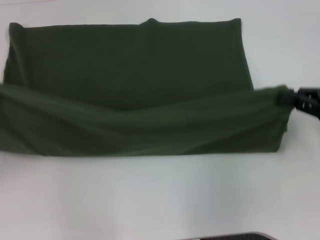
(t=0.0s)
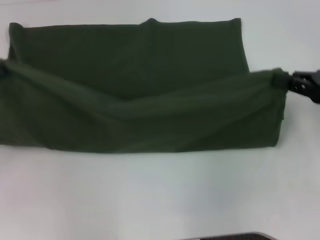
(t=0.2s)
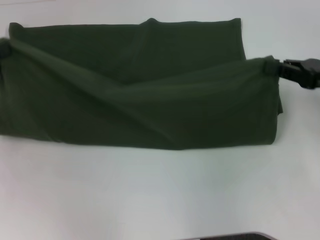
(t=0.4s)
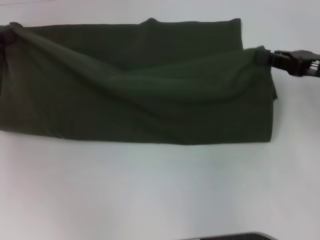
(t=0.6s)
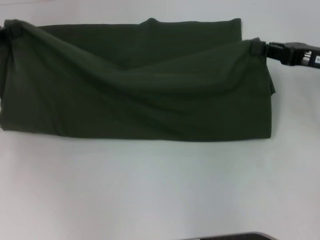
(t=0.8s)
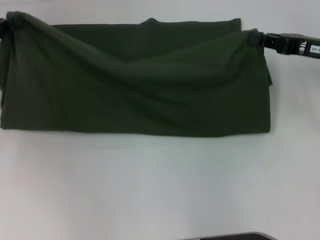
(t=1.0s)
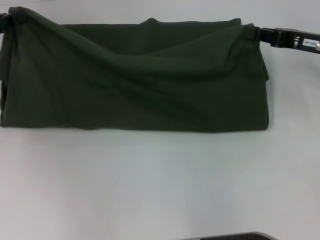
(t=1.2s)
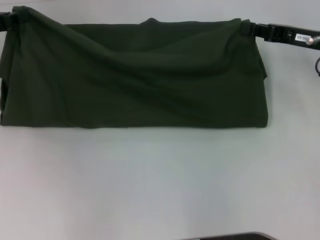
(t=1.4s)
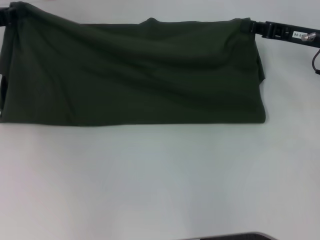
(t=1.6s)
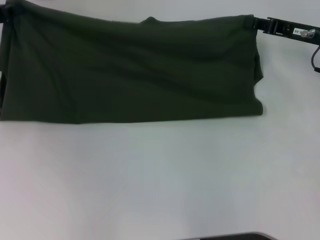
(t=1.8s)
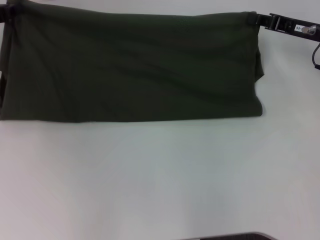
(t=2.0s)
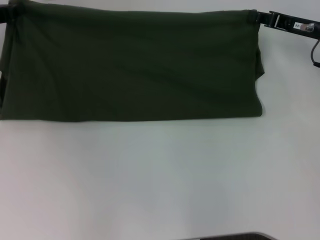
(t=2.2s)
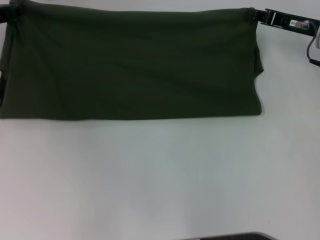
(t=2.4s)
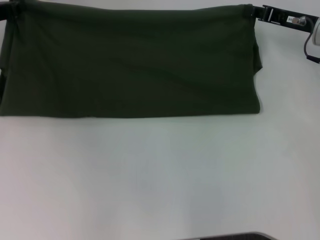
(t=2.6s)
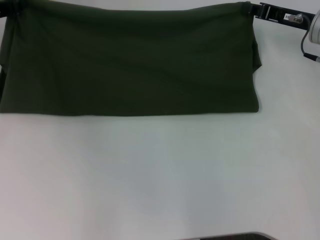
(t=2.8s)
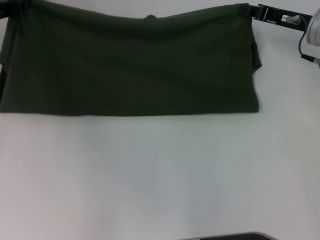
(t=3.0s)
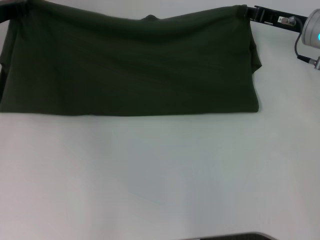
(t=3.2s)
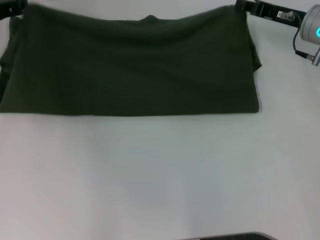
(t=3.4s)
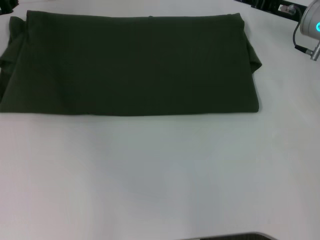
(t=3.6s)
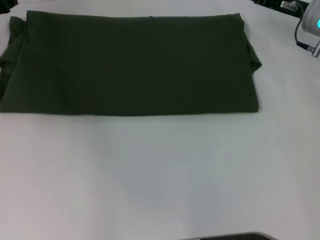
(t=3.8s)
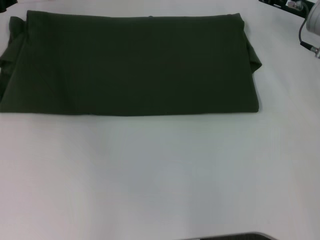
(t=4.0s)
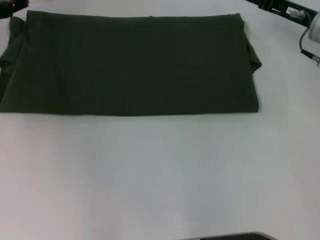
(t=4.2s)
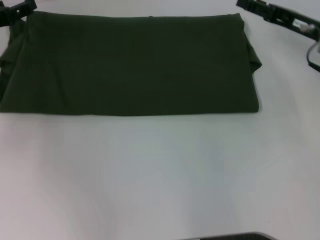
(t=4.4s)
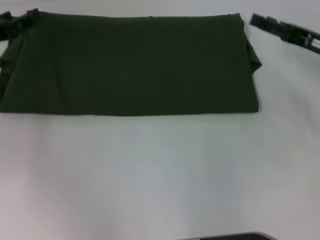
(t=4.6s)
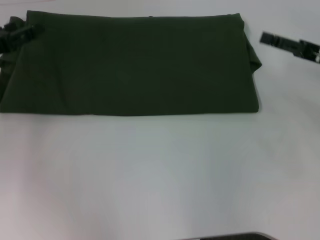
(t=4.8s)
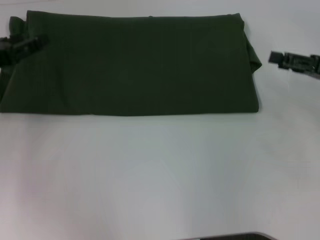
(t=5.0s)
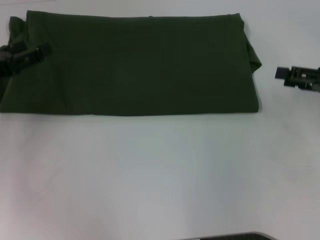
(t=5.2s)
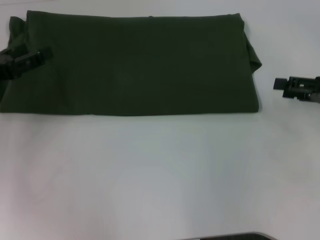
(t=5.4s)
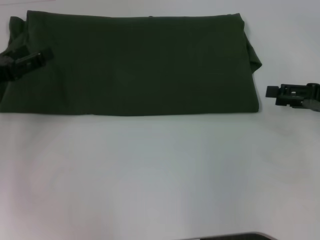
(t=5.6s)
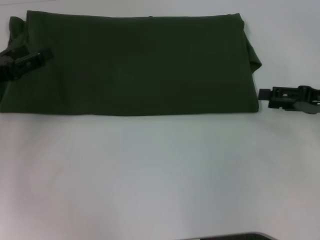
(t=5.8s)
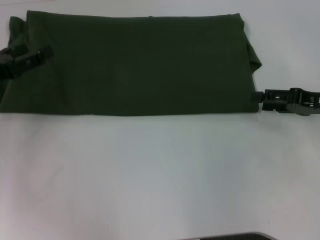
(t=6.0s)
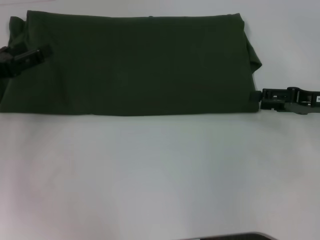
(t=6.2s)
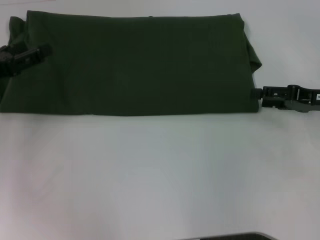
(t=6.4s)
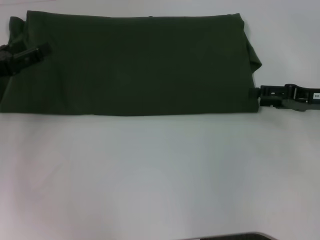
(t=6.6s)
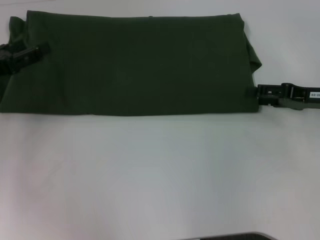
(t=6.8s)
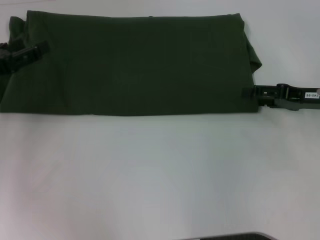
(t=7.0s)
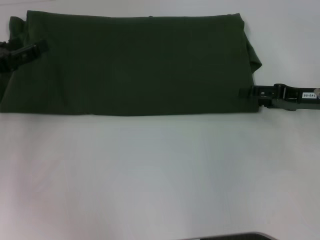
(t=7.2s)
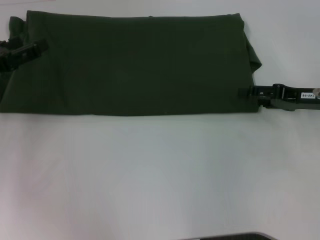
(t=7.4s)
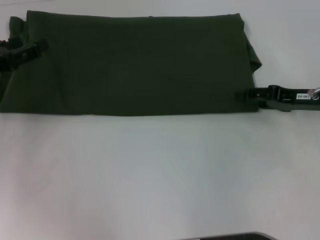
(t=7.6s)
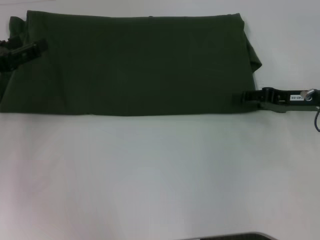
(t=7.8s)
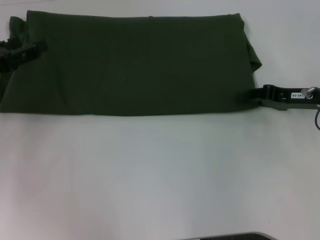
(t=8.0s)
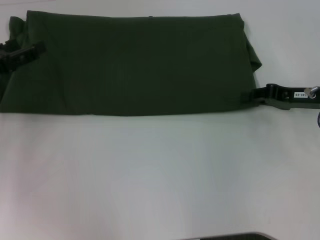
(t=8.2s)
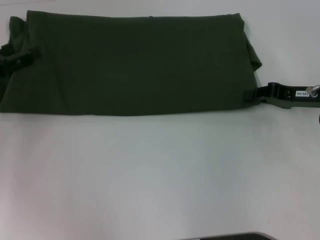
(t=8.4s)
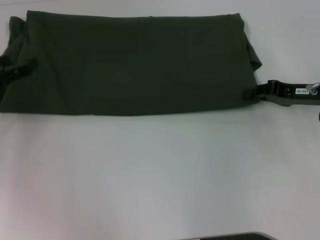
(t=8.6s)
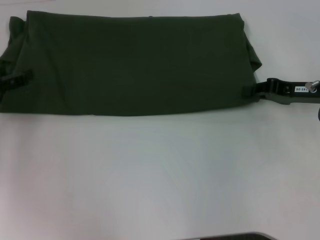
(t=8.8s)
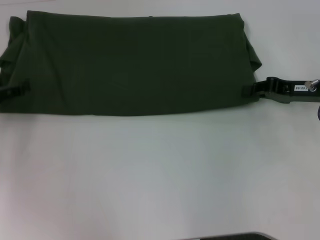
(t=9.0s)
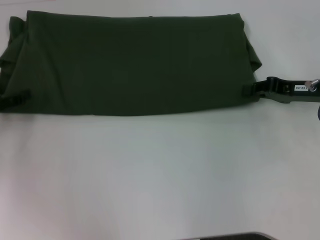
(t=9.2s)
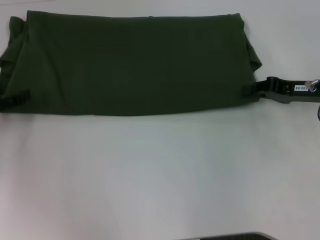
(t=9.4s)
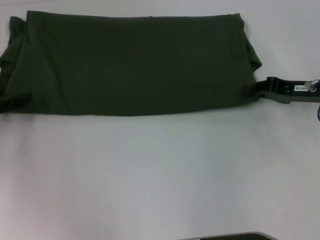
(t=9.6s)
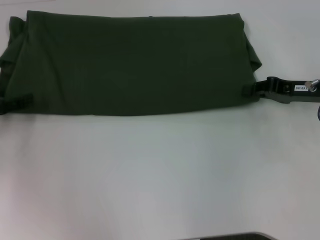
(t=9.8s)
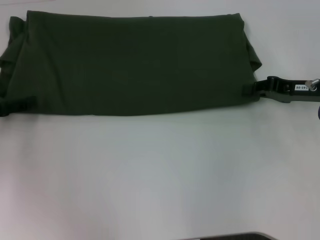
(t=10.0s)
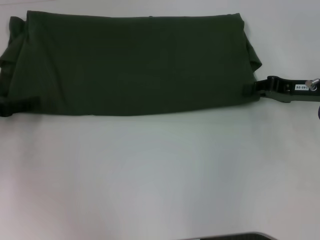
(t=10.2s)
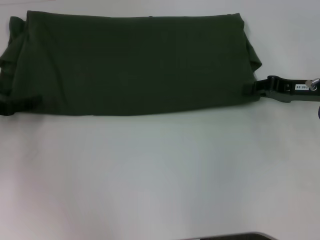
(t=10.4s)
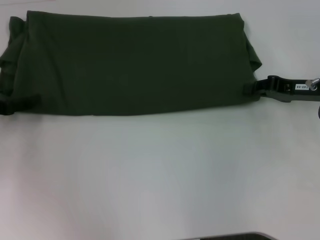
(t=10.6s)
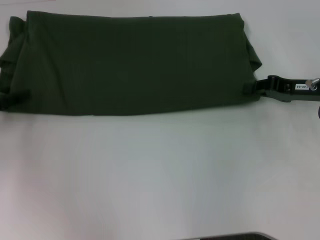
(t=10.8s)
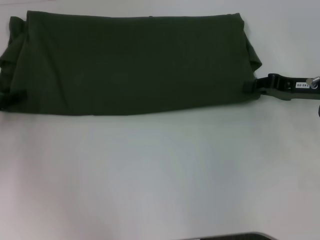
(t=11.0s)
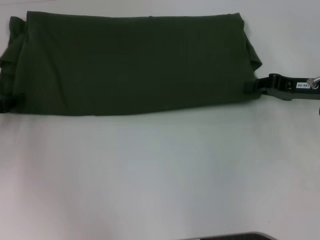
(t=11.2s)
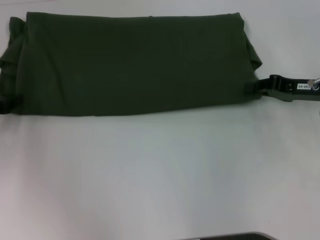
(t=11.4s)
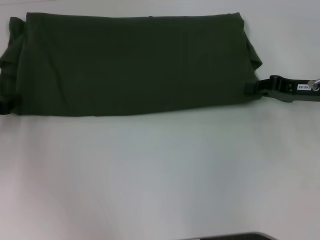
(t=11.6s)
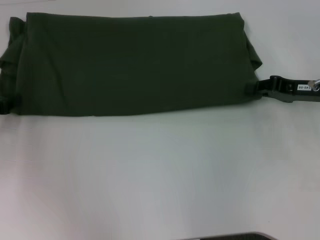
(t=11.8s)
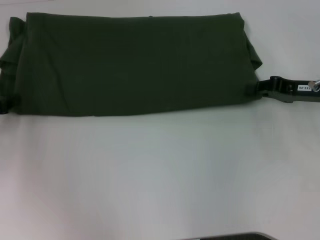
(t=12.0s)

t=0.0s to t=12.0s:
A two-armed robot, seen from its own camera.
Step, t=0.0s to t=3.8s: Fold the clothes with your left hand.
Step, t=0.0s to t=3.8s: Fold the clothes with your right hand.
t=0.0s to t=1.6s: Both grippers move forward, roughly 15 cm.
t=1.6s to t=3.0s: The grippers stay close to where they were, moving slightly.
t=3.0s to t=4.4s: The right gripper opens its fingers; the left gripper opens its fingers.
t=4.4s to t=6.0s: Both grippers travel together backward, some 5 cm.
t=6.0s to t=7.6s: There are only small adjustments of the grippers.
t=7.6s to t=9.0s: The right gripper closes.
t=9.0s to t=10.4s: The grippers stay close to where they were, moving slightly.

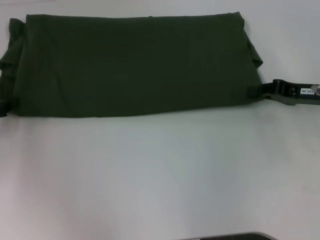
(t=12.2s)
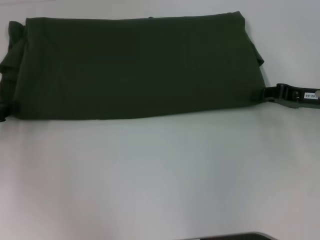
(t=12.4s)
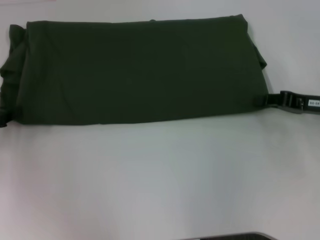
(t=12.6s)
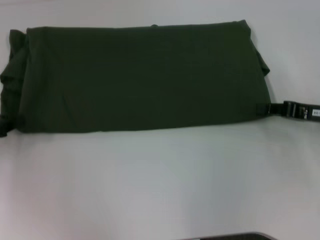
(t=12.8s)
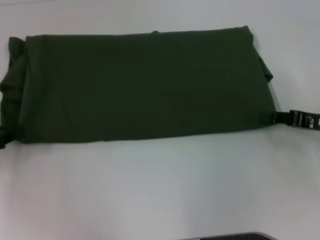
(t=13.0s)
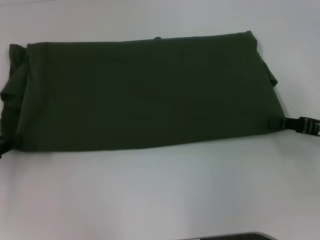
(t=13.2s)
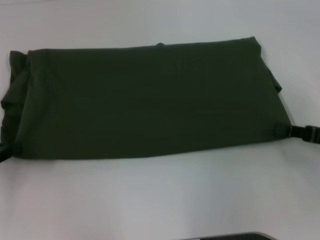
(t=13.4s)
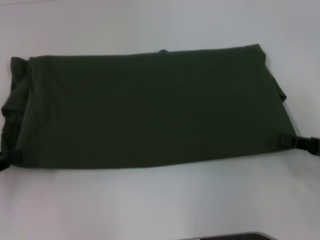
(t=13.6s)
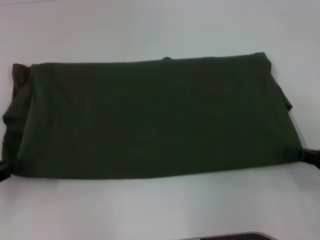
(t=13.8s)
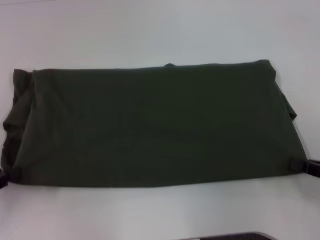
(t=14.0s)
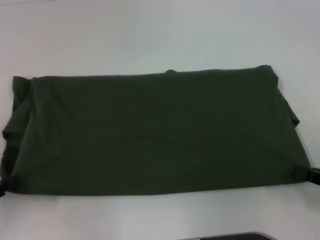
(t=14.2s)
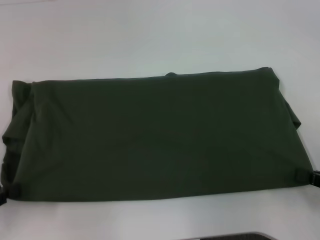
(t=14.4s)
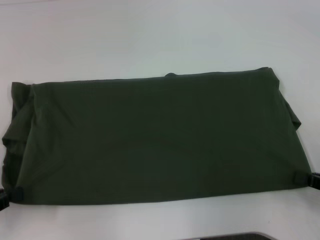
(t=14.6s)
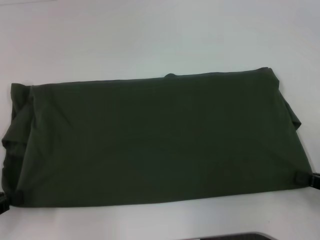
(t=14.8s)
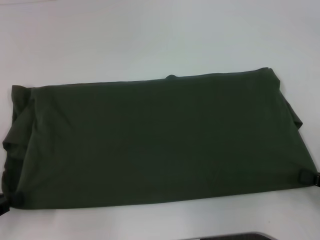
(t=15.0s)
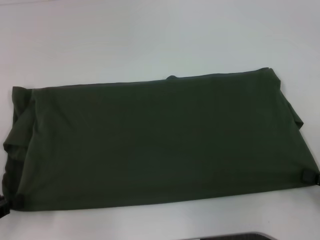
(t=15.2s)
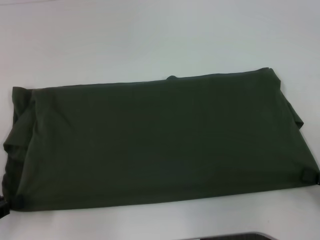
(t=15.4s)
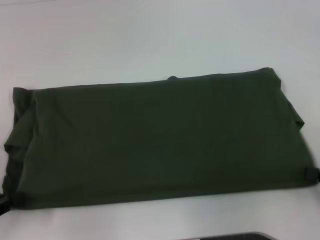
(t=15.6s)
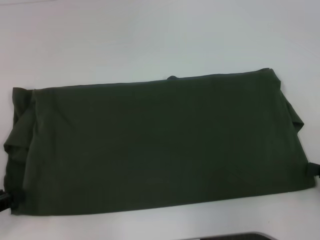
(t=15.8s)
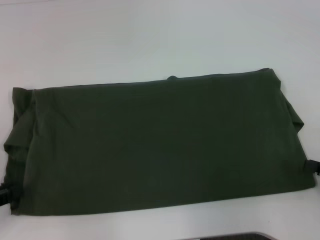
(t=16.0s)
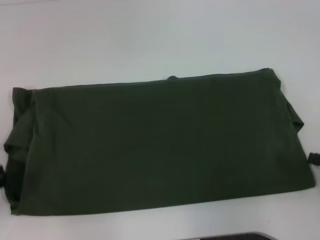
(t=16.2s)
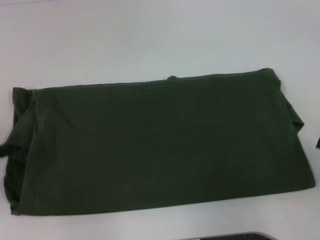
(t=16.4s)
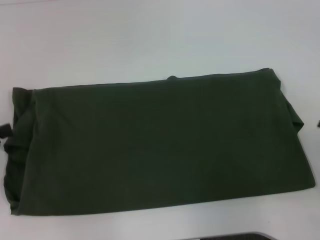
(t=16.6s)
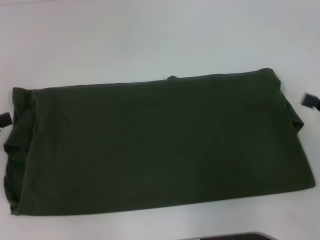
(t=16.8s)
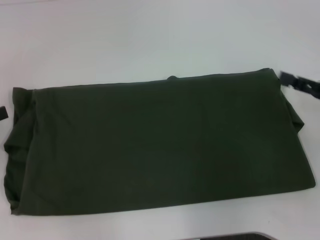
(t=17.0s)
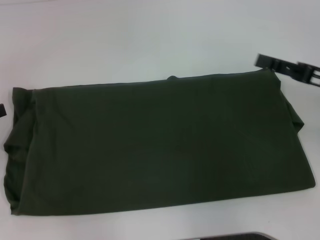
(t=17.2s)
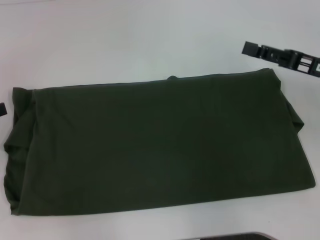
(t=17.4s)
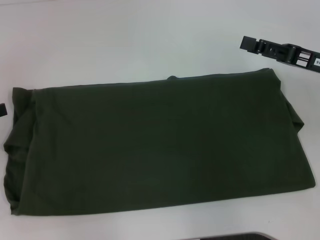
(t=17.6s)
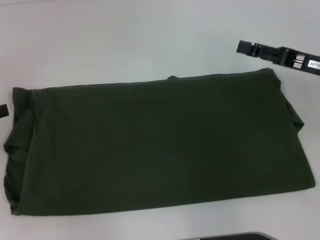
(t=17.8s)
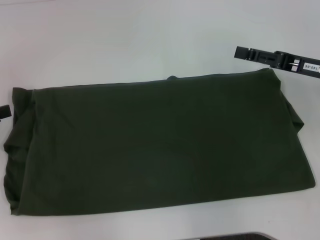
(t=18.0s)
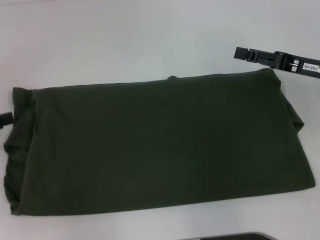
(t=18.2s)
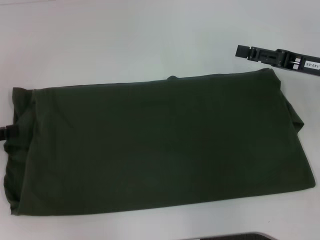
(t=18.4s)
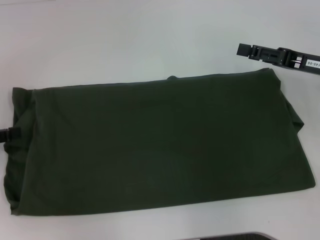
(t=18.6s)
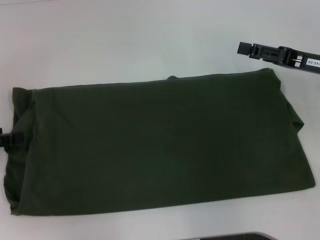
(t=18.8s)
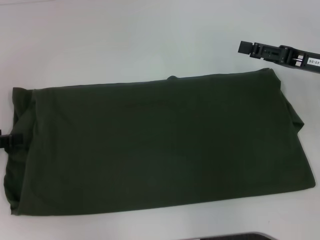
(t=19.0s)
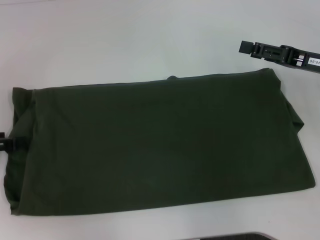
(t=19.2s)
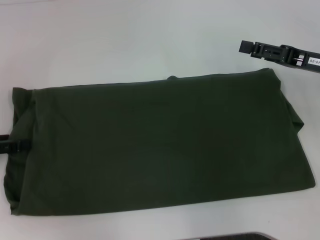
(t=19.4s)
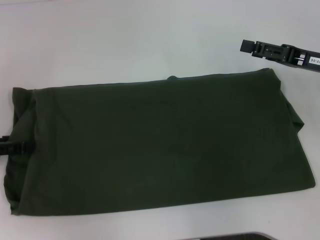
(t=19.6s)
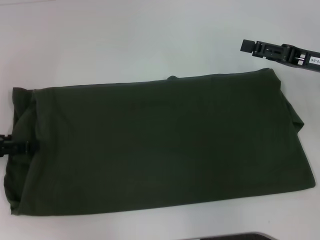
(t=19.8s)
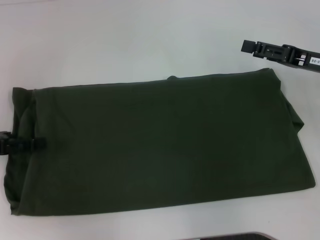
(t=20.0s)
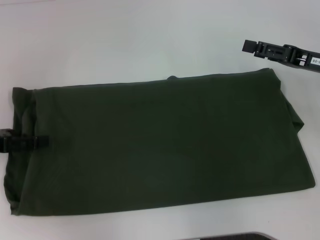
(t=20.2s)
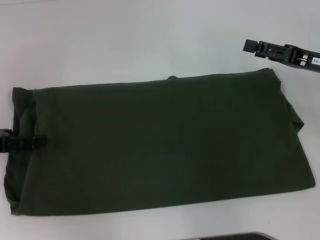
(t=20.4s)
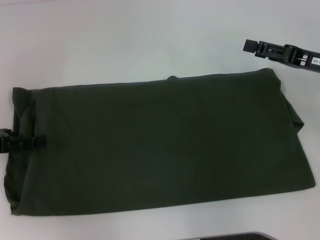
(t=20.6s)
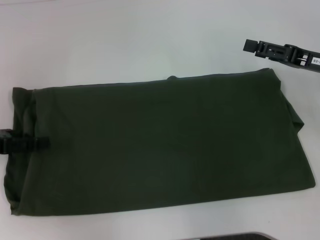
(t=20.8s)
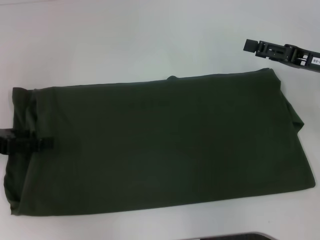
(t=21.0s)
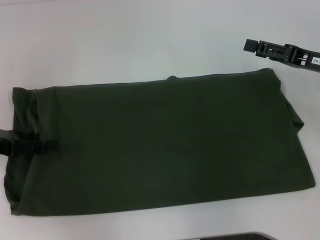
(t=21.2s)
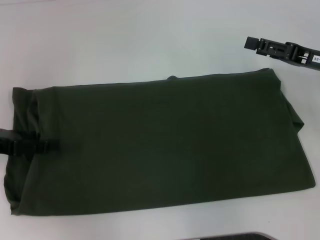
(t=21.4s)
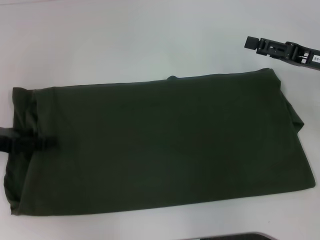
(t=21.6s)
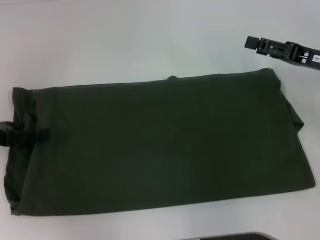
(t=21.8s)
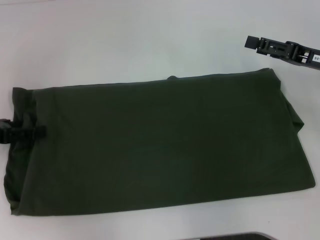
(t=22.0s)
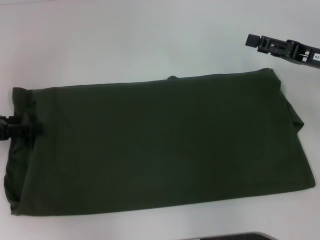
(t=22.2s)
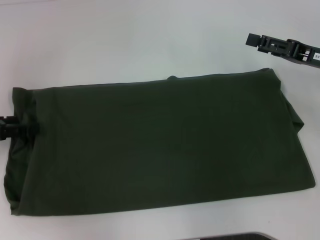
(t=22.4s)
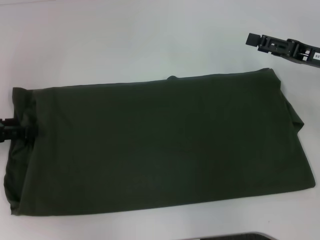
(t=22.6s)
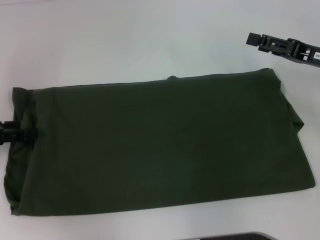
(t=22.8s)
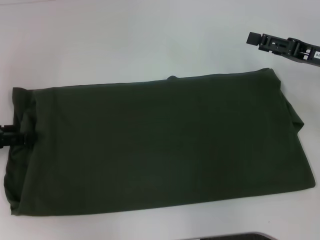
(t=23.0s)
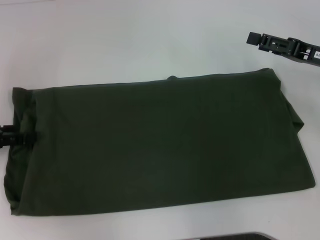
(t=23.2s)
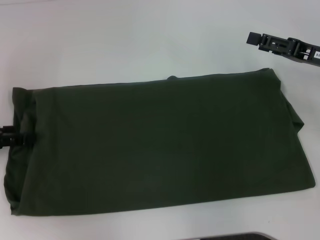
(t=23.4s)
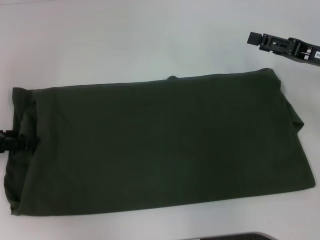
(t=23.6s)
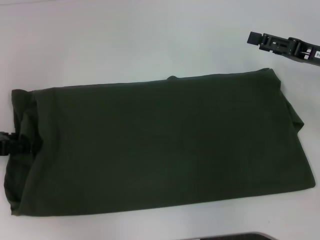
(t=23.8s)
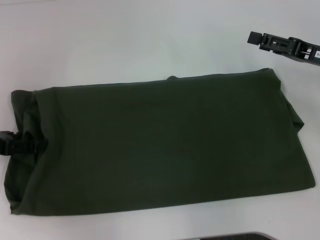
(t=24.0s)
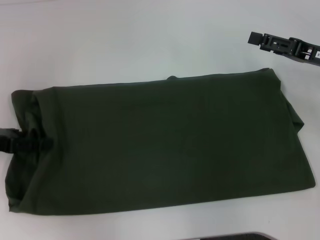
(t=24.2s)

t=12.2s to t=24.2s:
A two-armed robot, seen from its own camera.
Step, t=12.2s to t=16.4s: Pull the clothes with your left hand.
Step, t=12.2s to t=16.4s: Pull the clothes with your right hand.
t=12.2s to t=13.8s: The two grippers go roughly 10 cm backward.
t=15.2s to t=16.6s: The right gripper changes place by roughly 5 cm, and opens up, while the left gripper ends up approximately 5 cm from where it was, and opens.
t=16.6s to t=18.2s: The right gripper is displaced forward and to the left by about 15 cm, and opens.
t=18.2s to t=24.2s: There are only small adjustments of the grippers.
